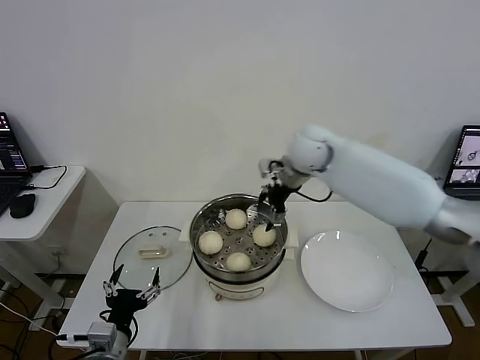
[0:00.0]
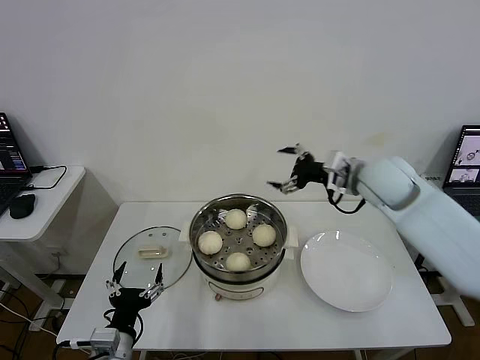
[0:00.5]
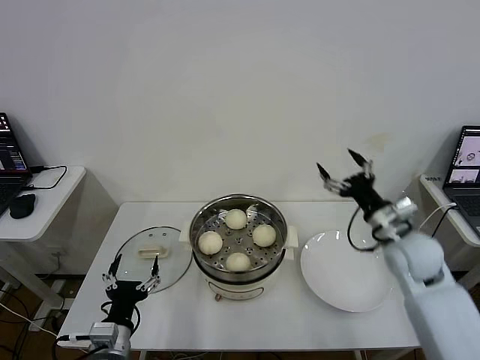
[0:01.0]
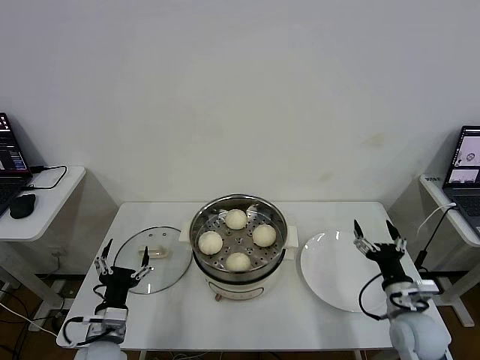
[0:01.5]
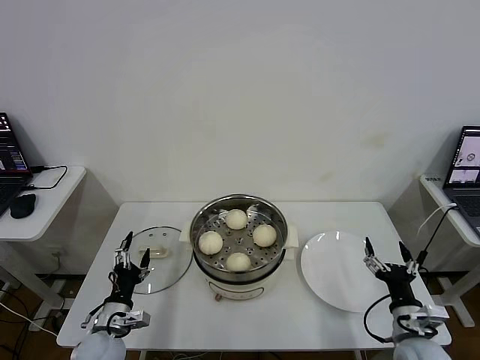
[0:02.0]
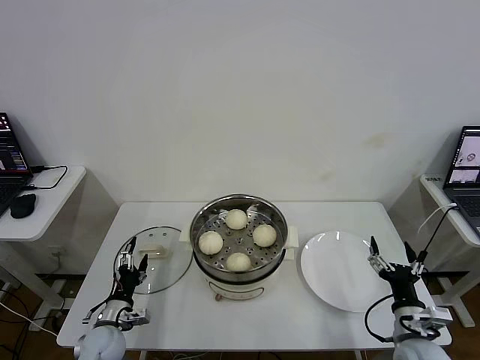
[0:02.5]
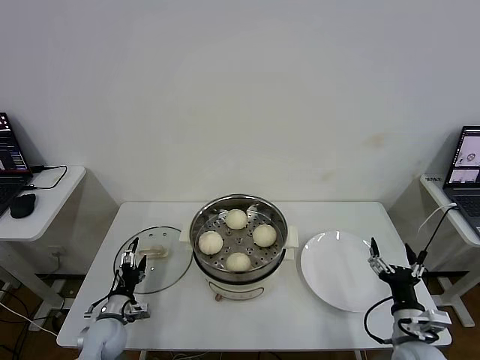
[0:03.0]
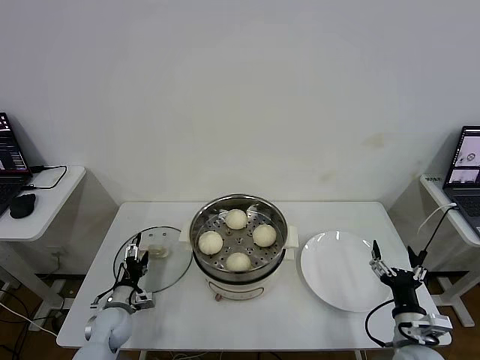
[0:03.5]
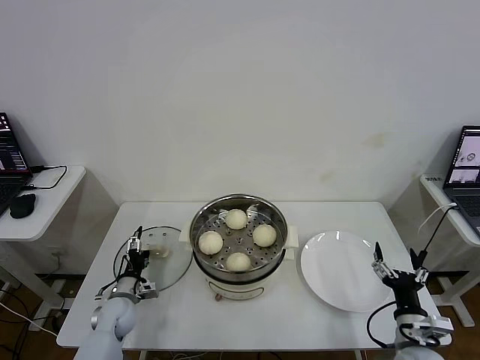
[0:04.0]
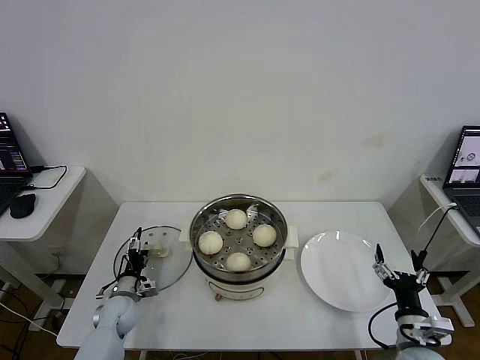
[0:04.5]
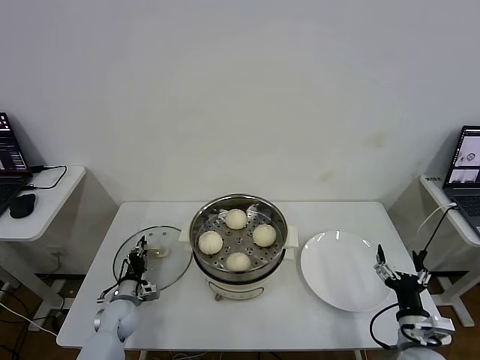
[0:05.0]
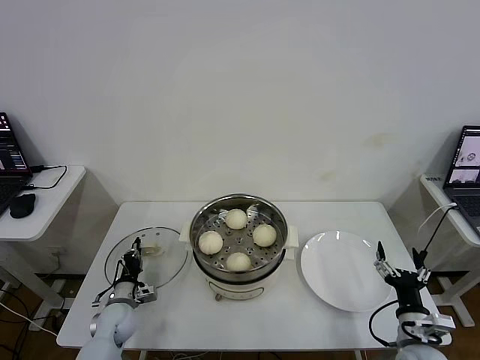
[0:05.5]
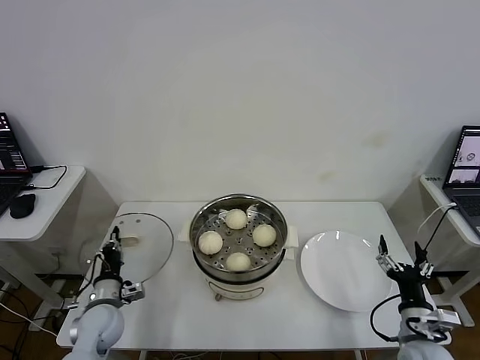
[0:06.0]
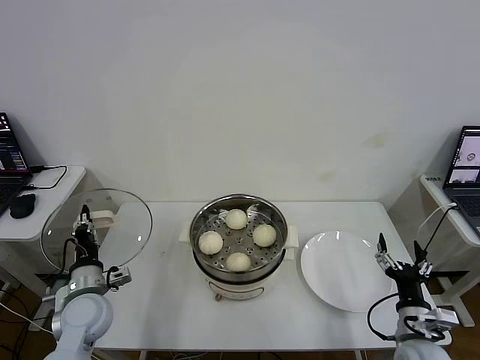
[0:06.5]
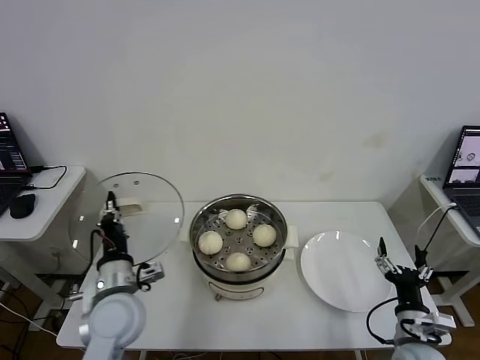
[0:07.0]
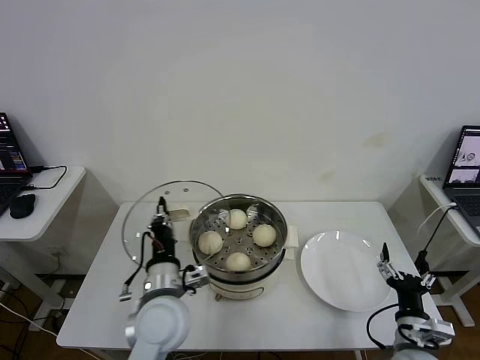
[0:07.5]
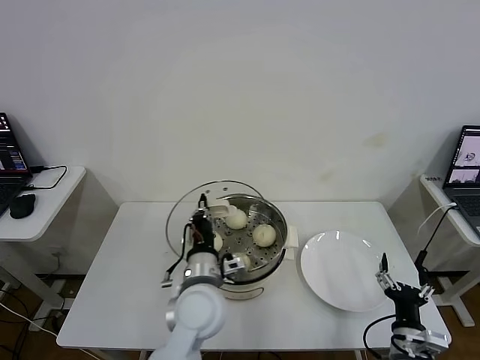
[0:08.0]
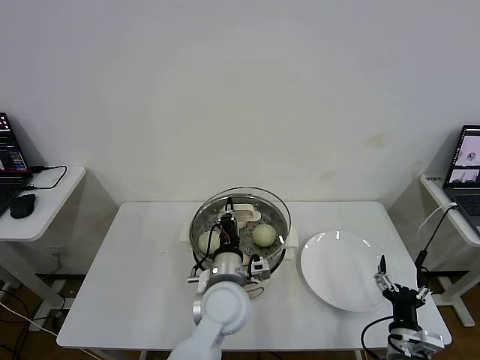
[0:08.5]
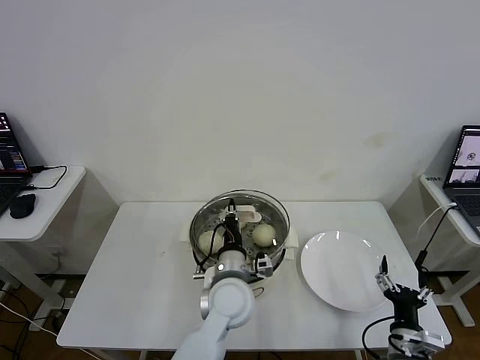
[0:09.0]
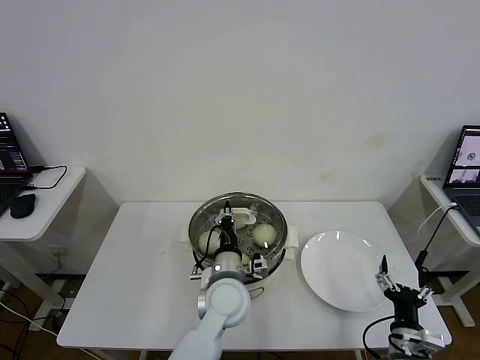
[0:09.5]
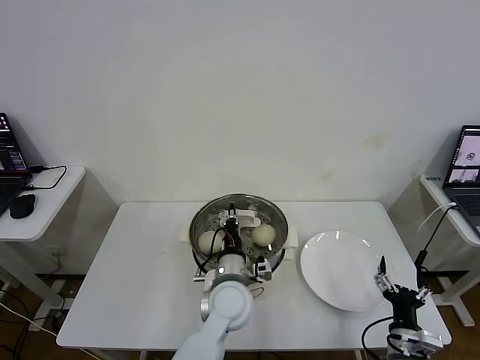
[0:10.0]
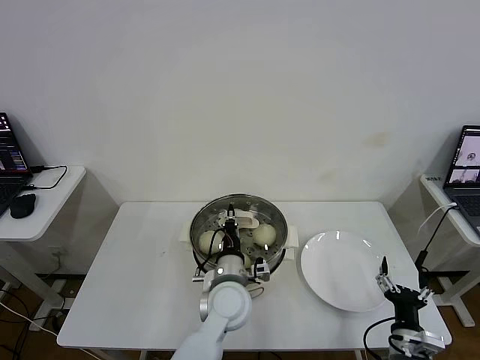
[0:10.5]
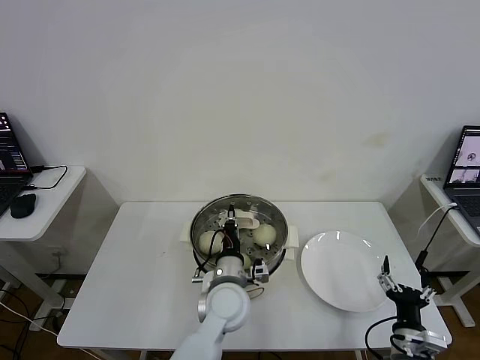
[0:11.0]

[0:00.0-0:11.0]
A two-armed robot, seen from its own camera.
Task of the whole recording: take steamed baozi put them in steamer then cover it.
Step, 0:00.0 to 0:05.5: Grasp the pot lid with left gripper.
0:00.0 to 0:02.0: The left gripper heads forward and downward, covering about 10 cm, while the right gripper moves backward, downward and to the right, approximately 50 cm.
0:02.0 to 0:03.5: The left gripper heads forward and downward, covering roughly 10 cm.
0:03.5 to 0:05.5: The left gripper closes.
0:05.5 to 0:07.5: The left gripper travels upward and to the right by about 30 cm.
0:07.5 to 0:09.0: The left gripper heads to the right, covering roughly 15 cm.
0:09.0 to 0:11.0: The grippers stay close to where they were, moving slightly.

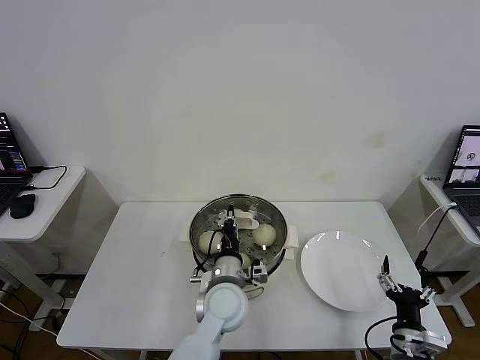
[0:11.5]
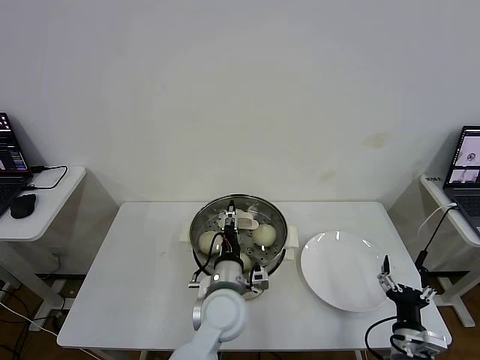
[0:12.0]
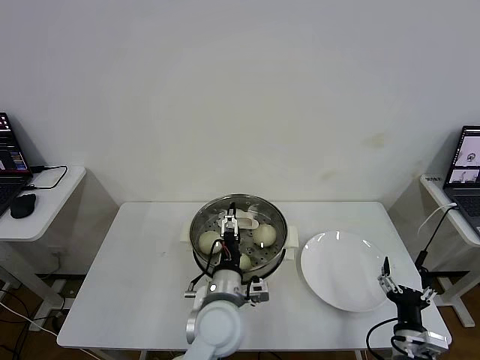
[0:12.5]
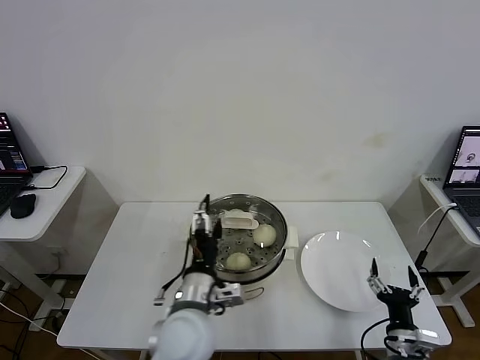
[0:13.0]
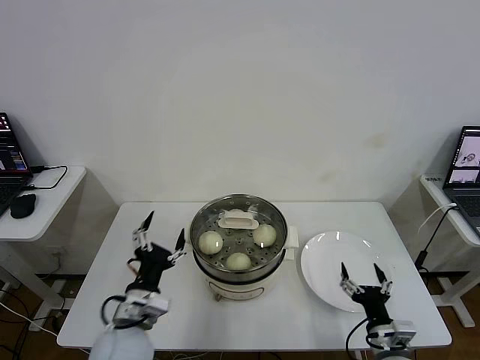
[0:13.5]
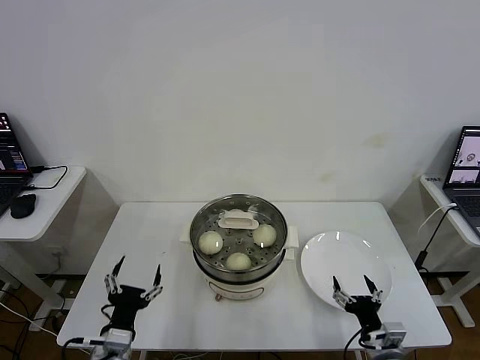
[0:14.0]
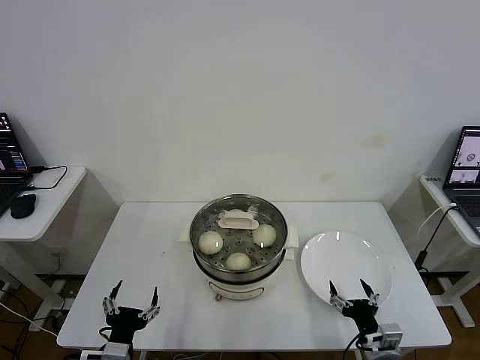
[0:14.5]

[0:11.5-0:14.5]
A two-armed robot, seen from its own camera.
Task of the whole recording: take steamed baozi put them in steamer then cover it.
0:11.5 to 0:13.0: The left gripper moves backward and upward, roughly 10 cm, and opens its fingers.
0:13.0 to 0:14.5: The left gripper heads to the left, downward and backward, covering about 25 cm.

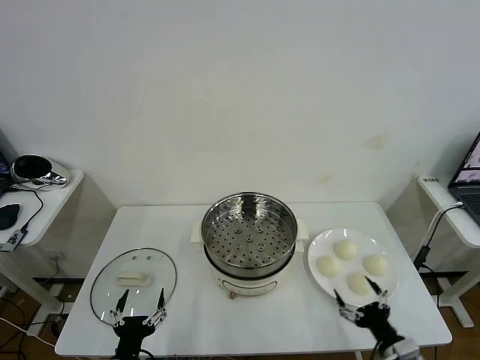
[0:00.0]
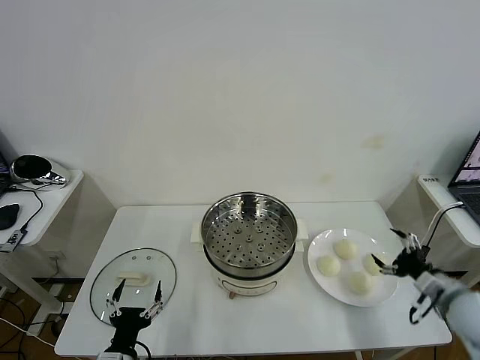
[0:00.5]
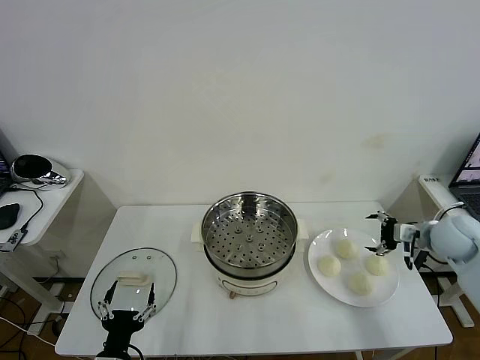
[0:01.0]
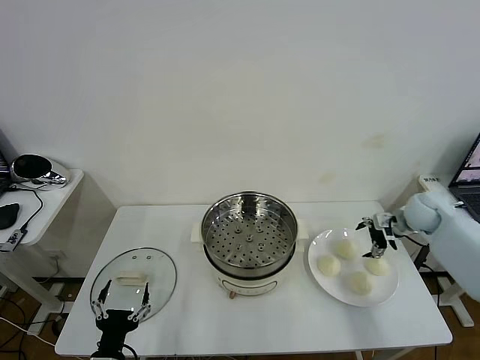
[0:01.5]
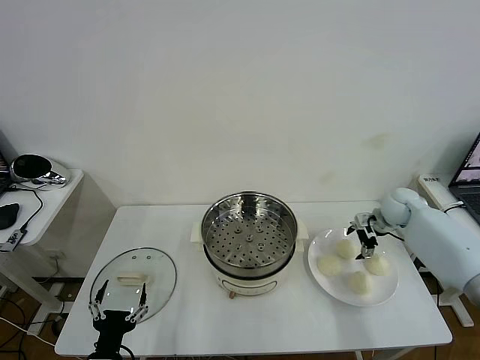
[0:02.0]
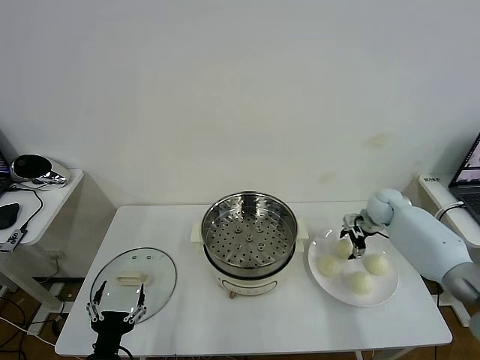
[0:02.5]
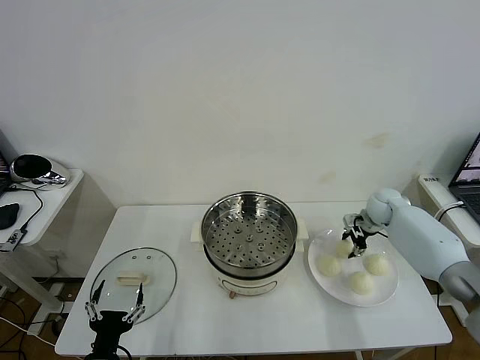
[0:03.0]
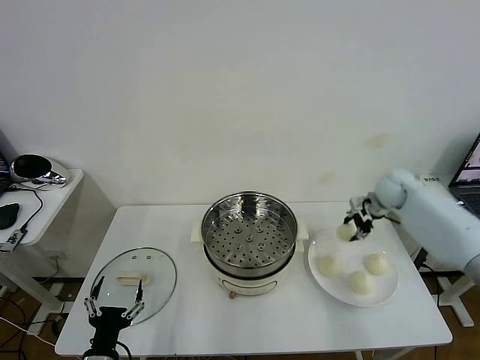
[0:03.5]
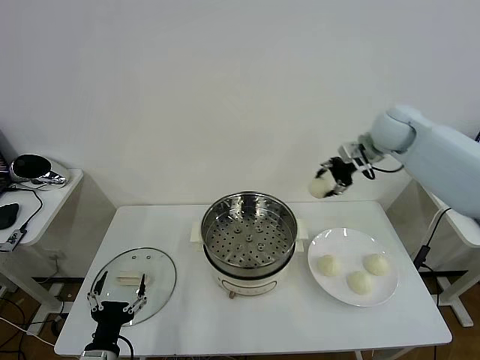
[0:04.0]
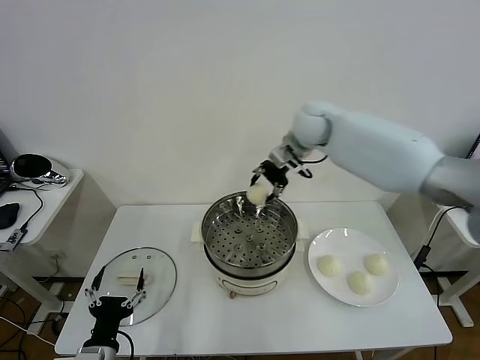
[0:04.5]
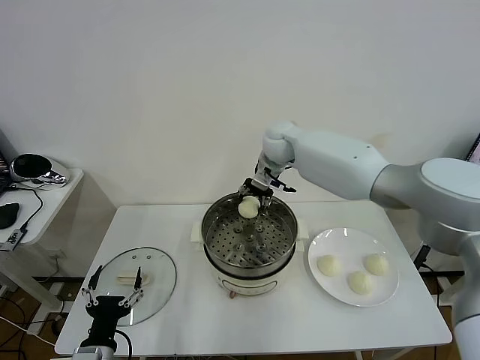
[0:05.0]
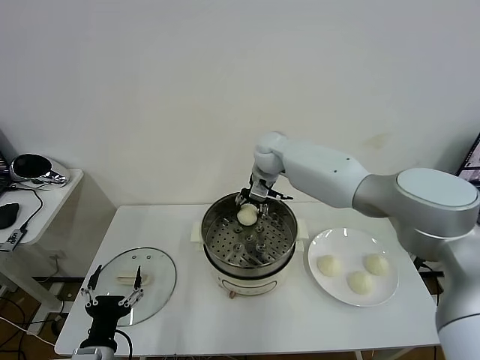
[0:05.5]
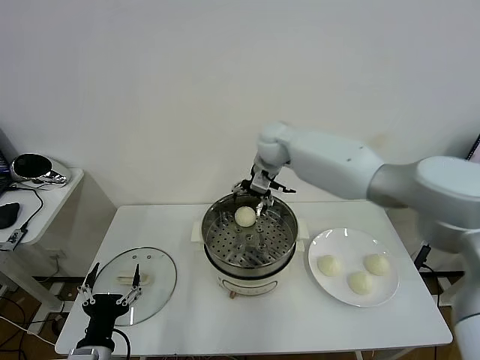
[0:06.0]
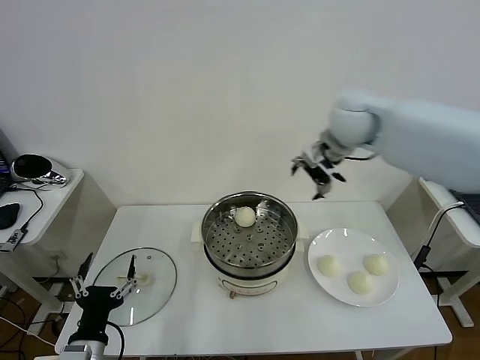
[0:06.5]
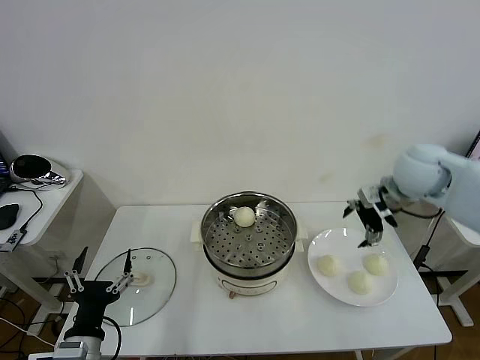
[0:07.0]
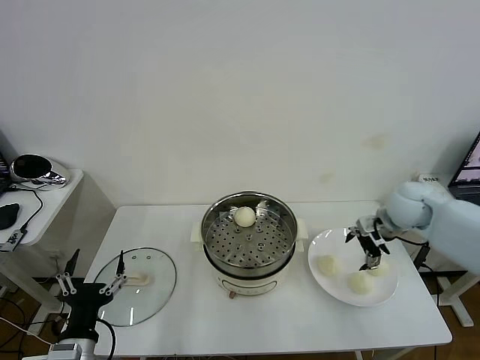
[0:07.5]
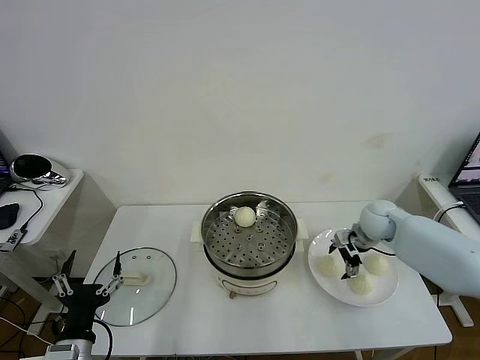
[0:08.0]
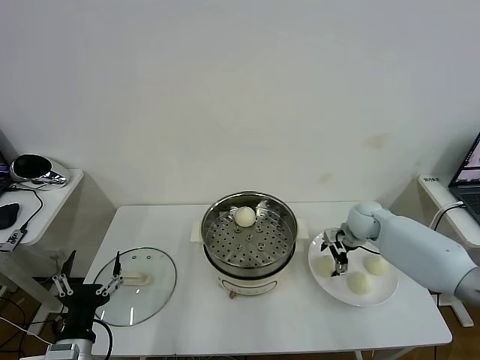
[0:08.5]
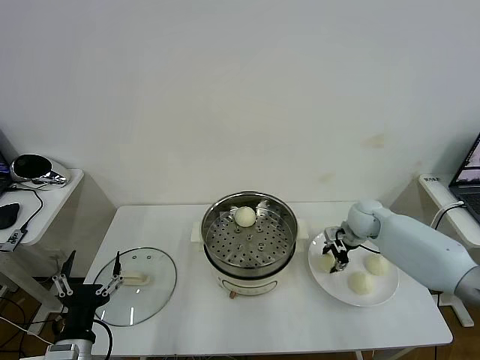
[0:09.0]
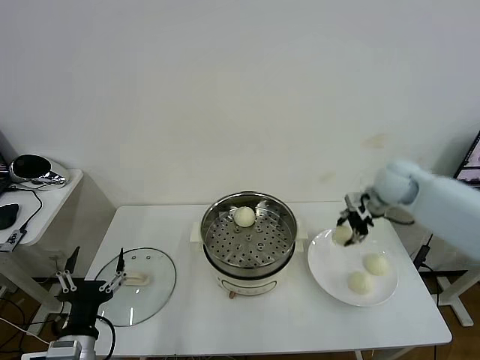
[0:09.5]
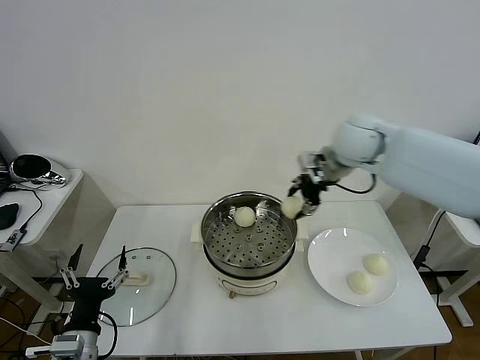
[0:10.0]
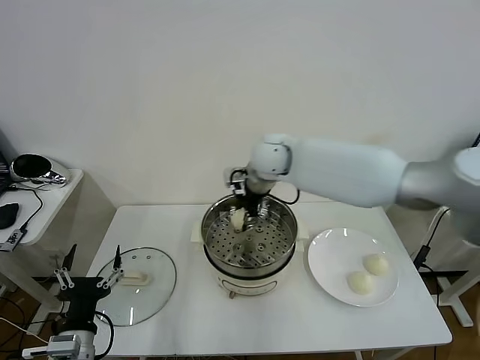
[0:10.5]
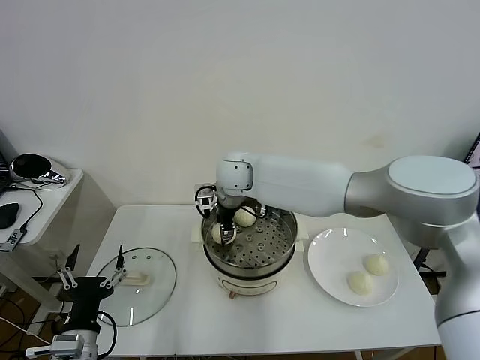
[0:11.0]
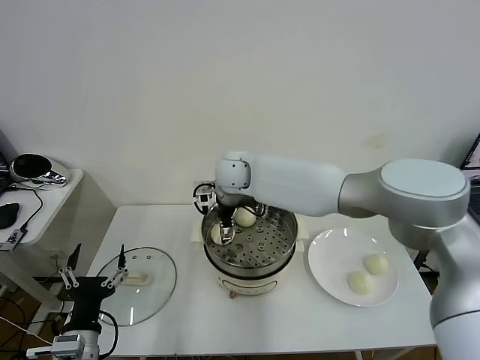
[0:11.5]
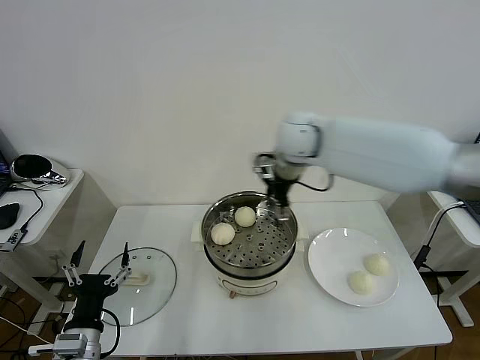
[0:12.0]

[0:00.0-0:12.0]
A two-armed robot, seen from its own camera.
Task of the whole recording: take steamed baozi put them in steamer then cover it.
Step, 0:00.0 to 0:03.0: Grasp the baozi in the plate with right gripper.
Step, 0:03.5 to 0:05.5: Place the baozi on the steamer with right gripper.
Step, 0:06.0 to 0:08.5: Grasp the baozi in the plate with right gripper.
Step, 0:09.0 to 0:11.5: Place the baozi on the steamer with right gripper.
0:02.0 to 0:04.0: The right gripper shifts approximately 25 cm upward and to the left, and closes up.
0:04.0 to 0:06.0: The right gripper goes some 20 cm to the left, and opens up.
0:06.0 to 0:08.0: The right gripper goes approximately 30 cm to the right and downward.
0:08.0 to 0:10.0: The right gripper heads upward and to the left, covering some 25 cm, and closes up.
0:10.0 to 0:12.0: The right gripper travels to the left and back again, about 20 cm each way, and opens.
